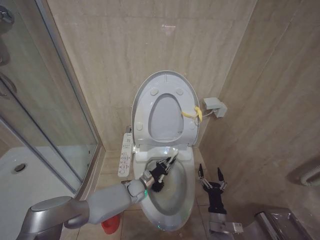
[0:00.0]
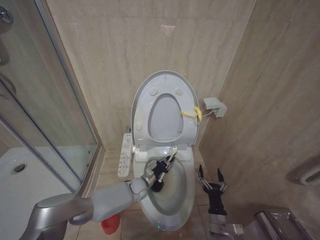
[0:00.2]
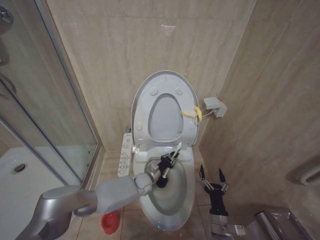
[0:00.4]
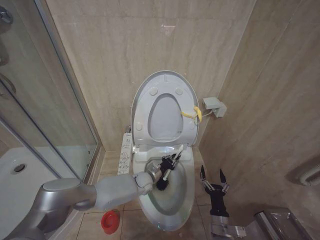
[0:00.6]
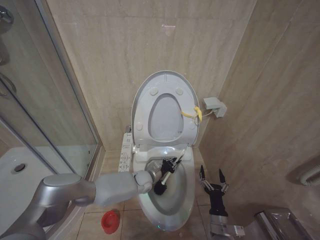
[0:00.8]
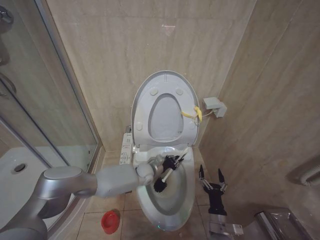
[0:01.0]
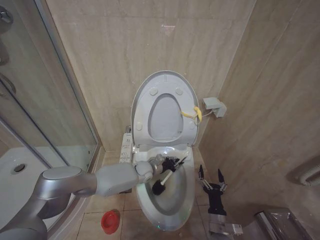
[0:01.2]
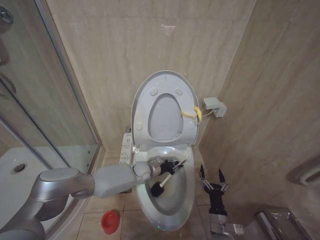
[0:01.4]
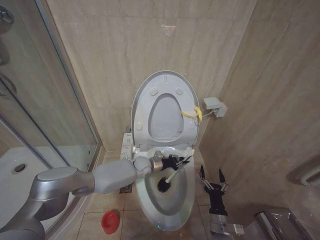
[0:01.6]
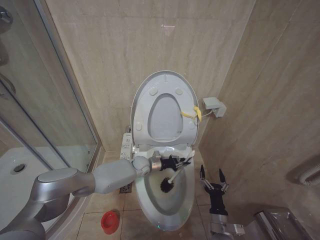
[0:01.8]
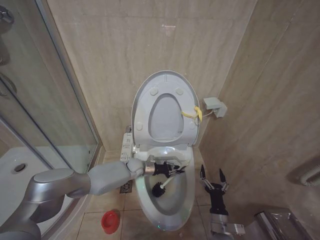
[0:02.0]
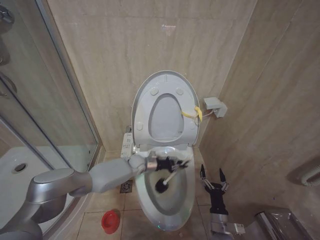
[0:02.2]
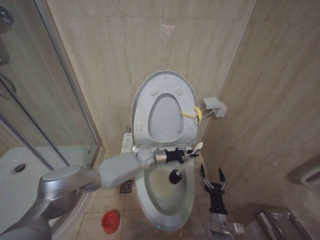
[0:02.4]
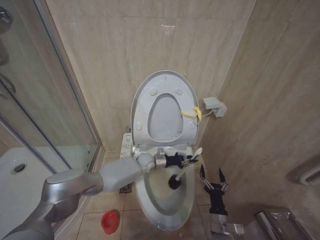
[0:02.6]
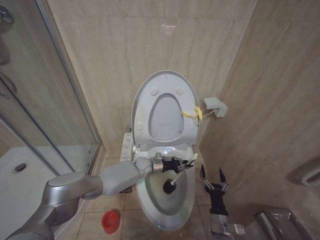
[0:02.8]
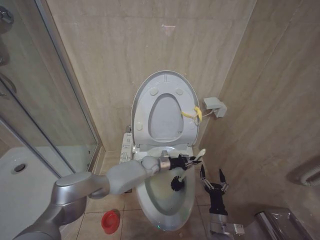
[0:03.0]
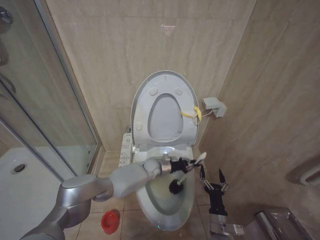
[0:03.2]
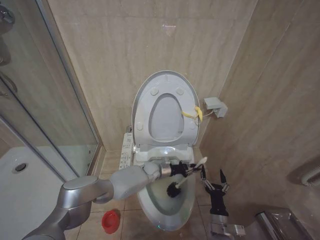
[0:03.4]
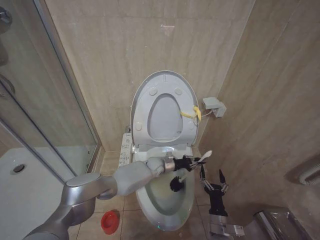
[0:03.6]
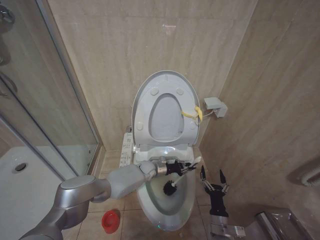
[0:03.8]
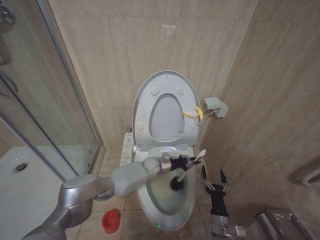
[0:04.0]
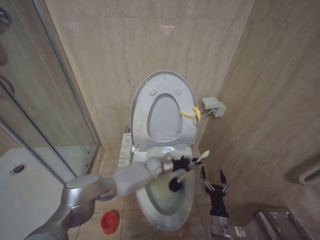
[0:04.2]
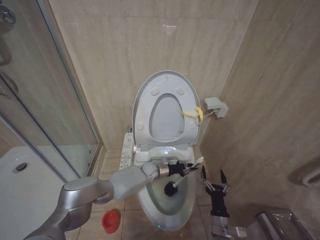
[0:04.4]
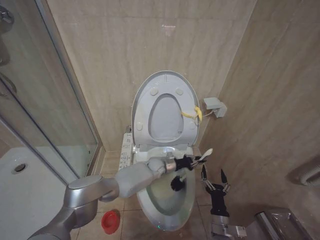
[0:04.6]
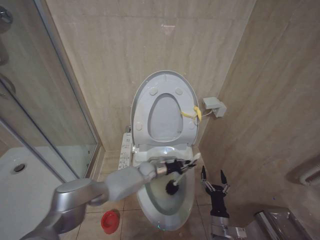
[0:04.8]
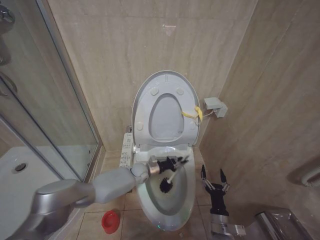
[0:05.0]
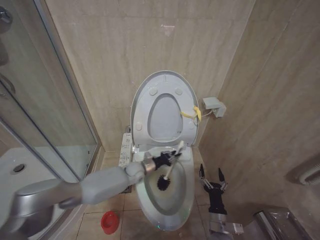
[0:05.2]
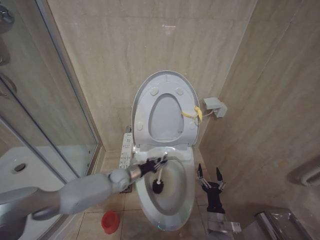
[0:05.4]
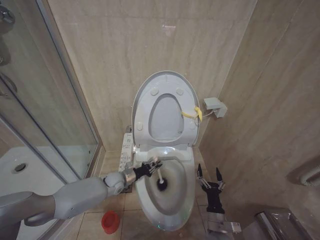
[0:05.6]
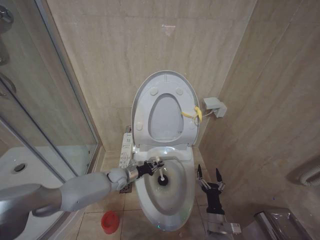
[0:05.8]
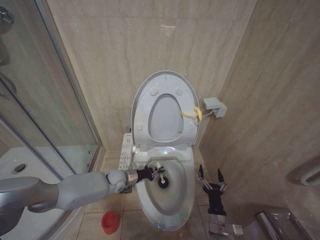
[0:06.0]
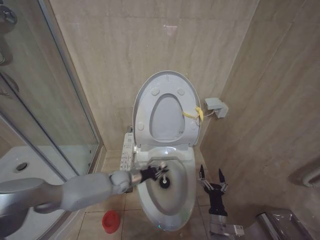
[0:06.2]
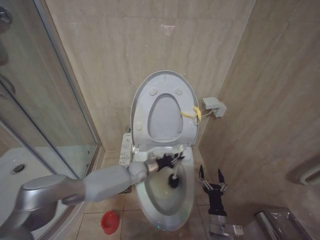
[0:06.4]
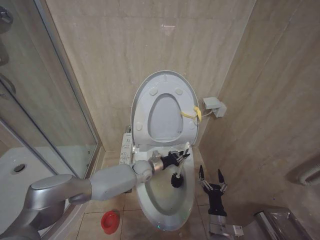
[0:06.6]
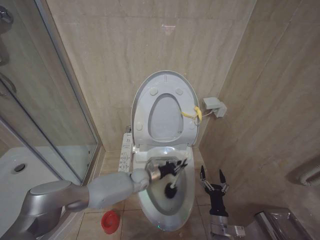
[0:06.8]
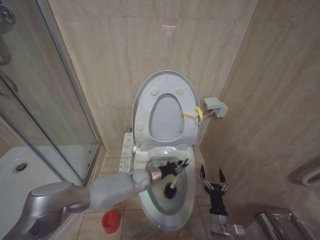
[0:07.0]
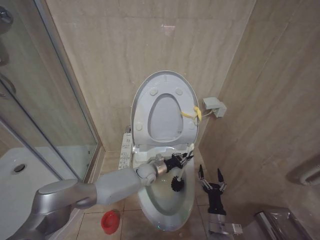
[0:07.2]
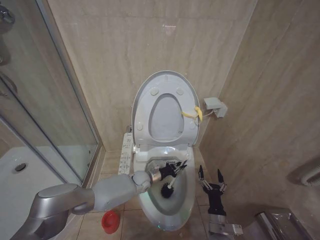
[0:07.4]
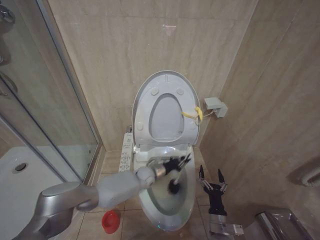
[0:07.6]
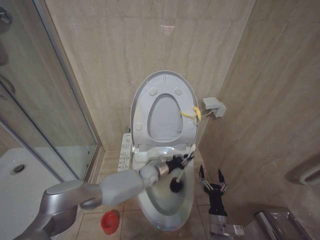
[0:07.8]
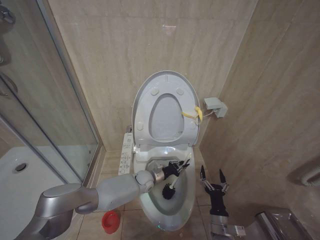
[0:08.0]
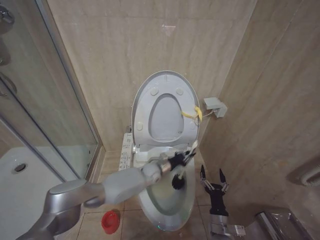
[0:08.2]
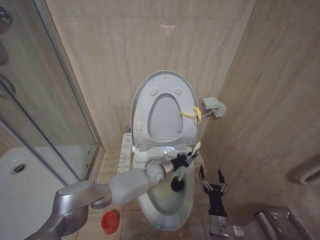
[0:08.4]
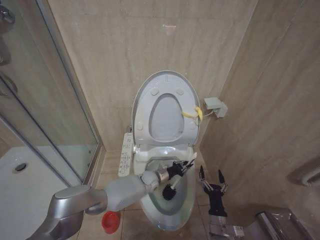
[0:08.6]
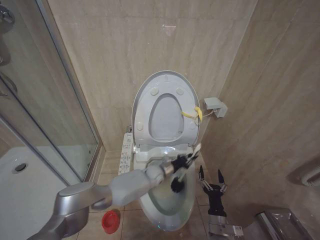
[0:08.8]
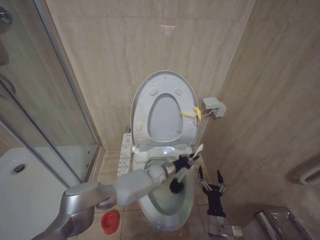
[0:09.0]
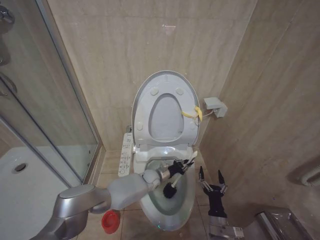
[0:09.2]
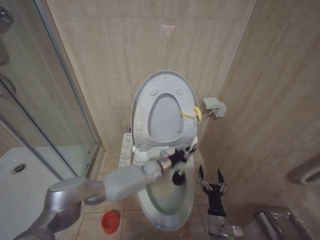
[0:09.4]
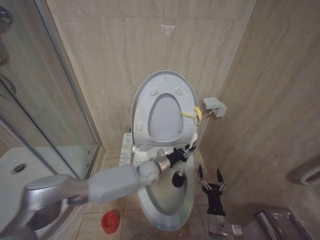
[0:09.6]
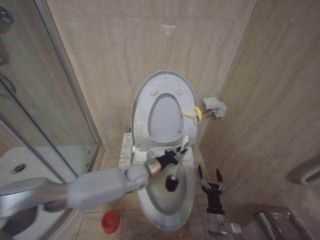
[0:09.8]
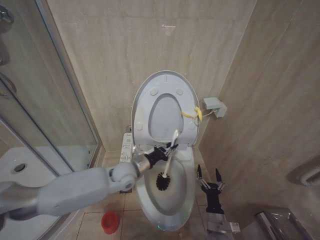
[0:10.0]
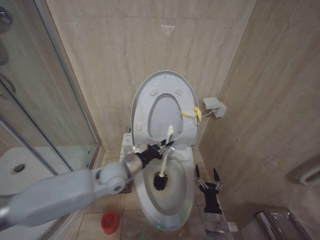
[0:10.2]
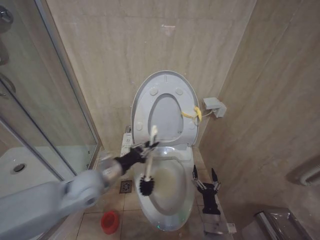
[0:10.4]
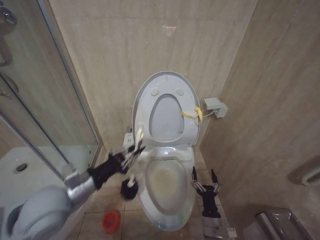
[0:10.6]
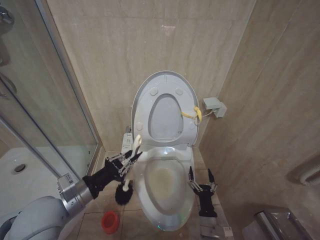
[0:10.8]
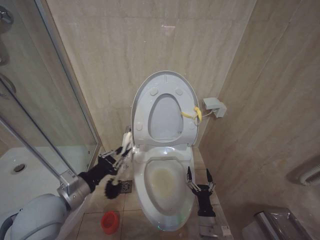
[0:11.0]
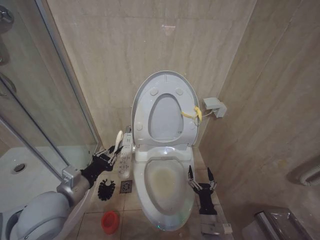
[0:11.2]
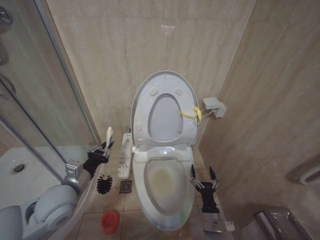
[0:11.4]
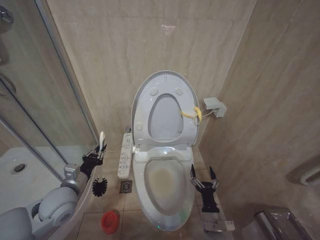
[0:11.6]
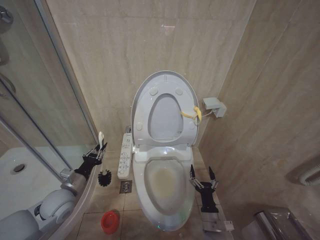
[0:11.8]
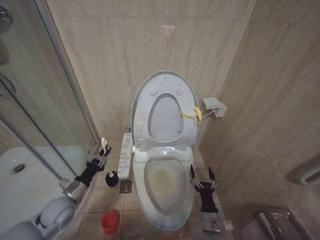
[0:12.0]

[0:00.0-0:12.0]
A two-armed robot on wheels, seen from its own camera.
Task of the whole recording: Open the toilet lid, clean the toilet bowl with a toilet brush, close the toilet lid, and flush.
0:00.0 to 0:01.6: The left gripper shifts roughly 10 cm upward and forward.
0:01.6 to 0:03.0: The grippers stay close to where they were, moving slightly.
0:03.0 to 0:04.4: There are only small adjustments of the grippers.
0:04.4 to 0:06.0: The left gripper is displaced to the left by approximately 15 cm.
0:06.0 to 0:07.6: The left gripper shifts approximately 10 cm to the right.
0:07.6 to 0:09.0: The left gripper goes some 10 cm to the right.
0:09.0 to 0:10.4: The left gripper heads to the left, upward and backward, covering about 30 cm.
0:10.4 to 0:12.0: The left gripper shifts about 20 cm to the left and downward.

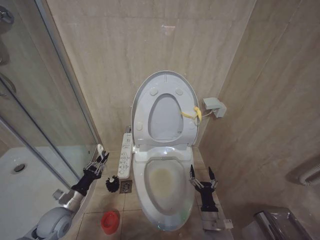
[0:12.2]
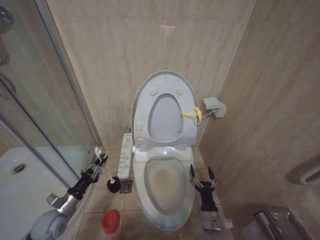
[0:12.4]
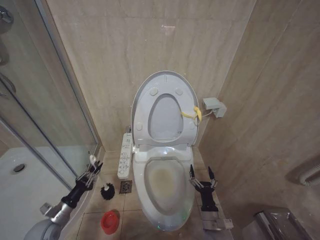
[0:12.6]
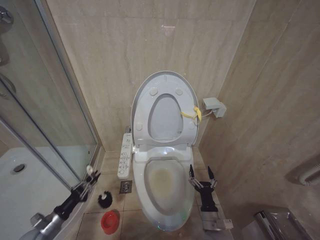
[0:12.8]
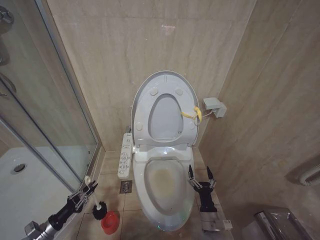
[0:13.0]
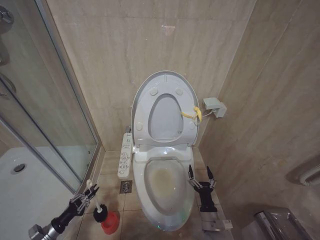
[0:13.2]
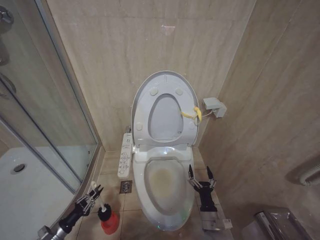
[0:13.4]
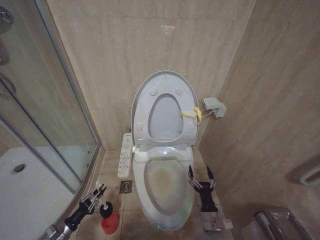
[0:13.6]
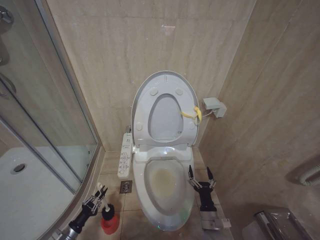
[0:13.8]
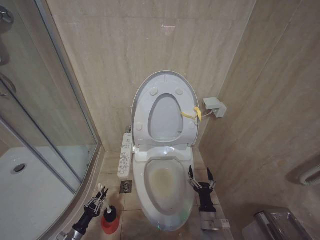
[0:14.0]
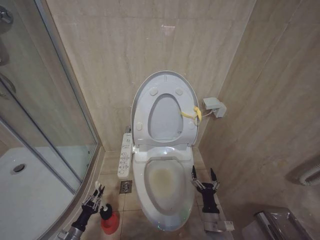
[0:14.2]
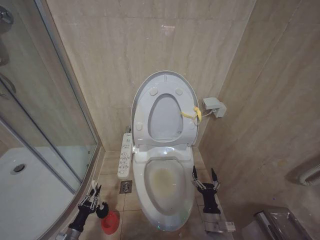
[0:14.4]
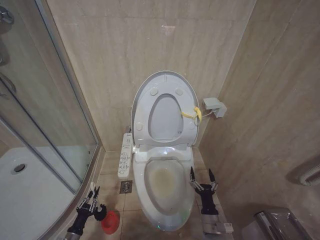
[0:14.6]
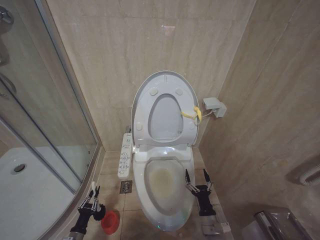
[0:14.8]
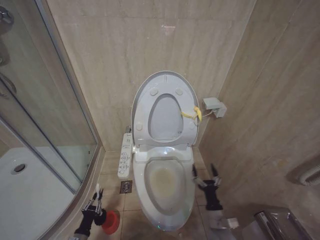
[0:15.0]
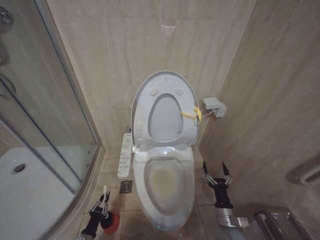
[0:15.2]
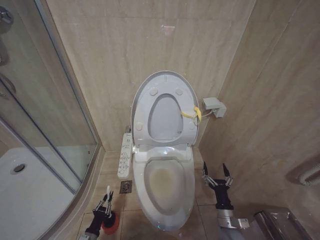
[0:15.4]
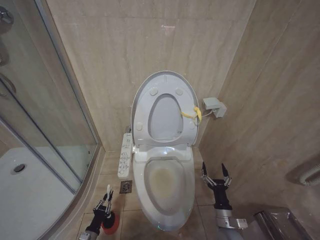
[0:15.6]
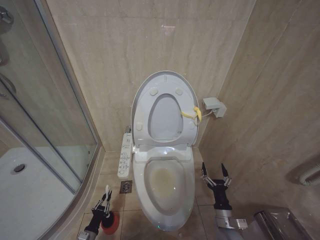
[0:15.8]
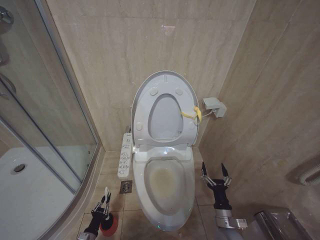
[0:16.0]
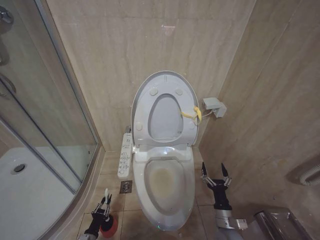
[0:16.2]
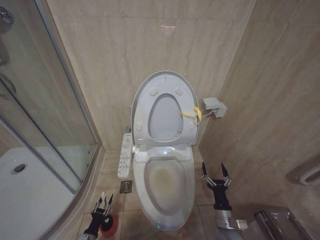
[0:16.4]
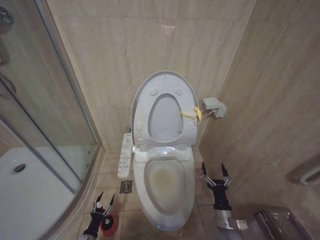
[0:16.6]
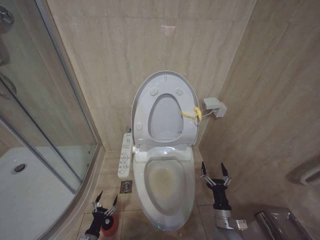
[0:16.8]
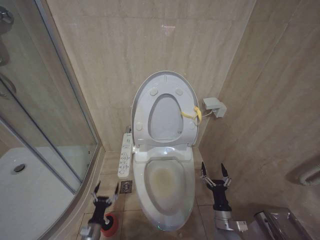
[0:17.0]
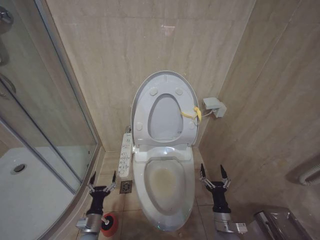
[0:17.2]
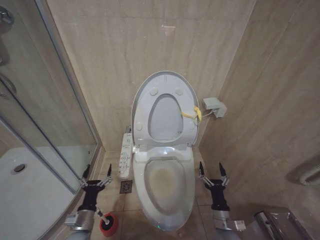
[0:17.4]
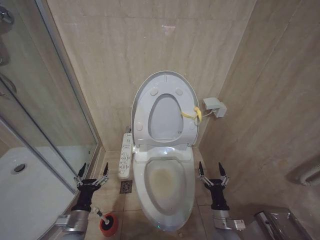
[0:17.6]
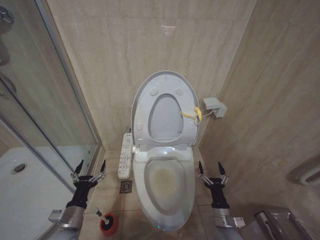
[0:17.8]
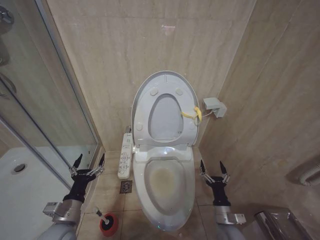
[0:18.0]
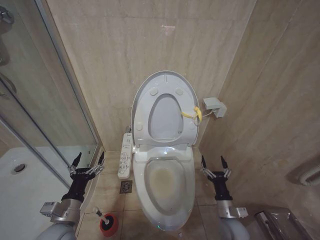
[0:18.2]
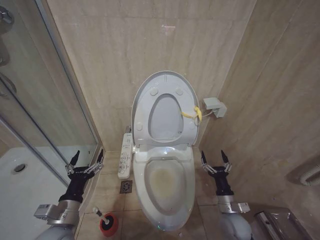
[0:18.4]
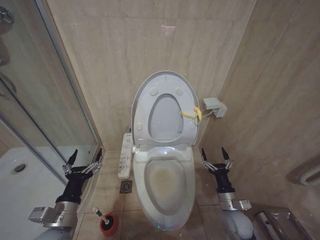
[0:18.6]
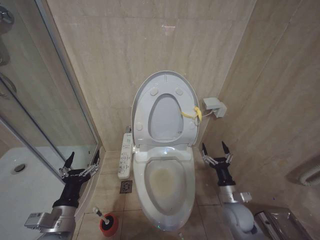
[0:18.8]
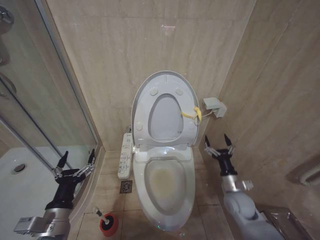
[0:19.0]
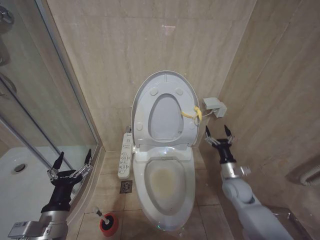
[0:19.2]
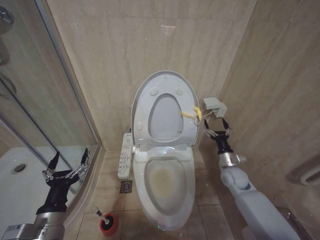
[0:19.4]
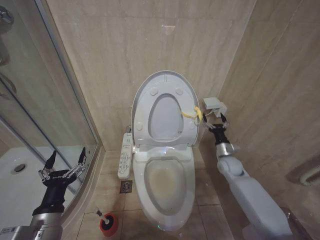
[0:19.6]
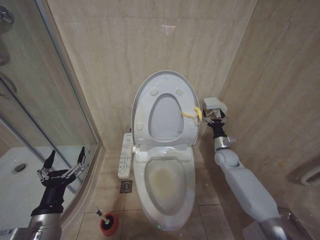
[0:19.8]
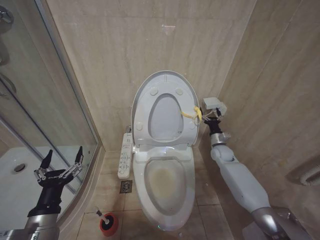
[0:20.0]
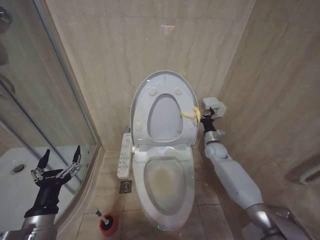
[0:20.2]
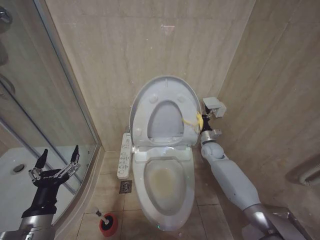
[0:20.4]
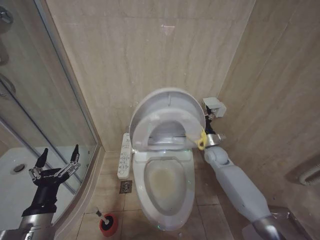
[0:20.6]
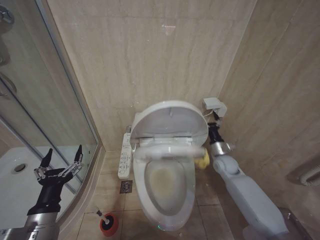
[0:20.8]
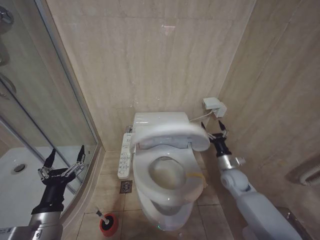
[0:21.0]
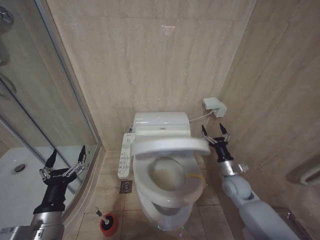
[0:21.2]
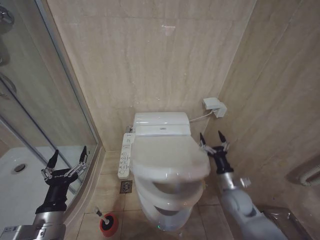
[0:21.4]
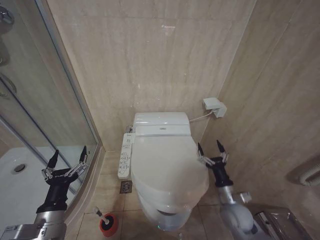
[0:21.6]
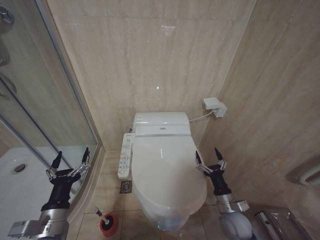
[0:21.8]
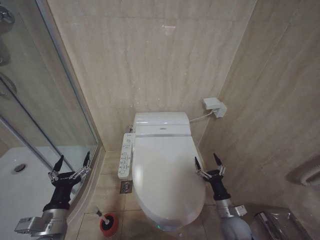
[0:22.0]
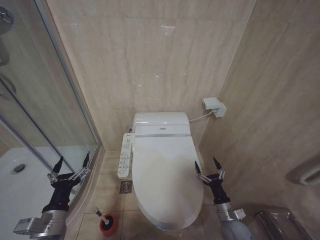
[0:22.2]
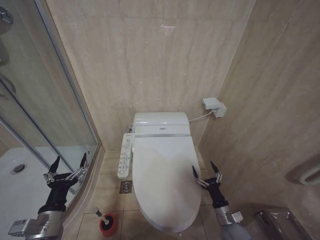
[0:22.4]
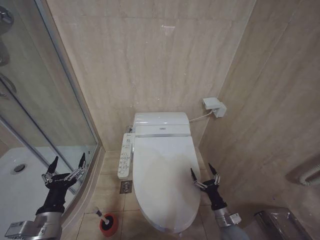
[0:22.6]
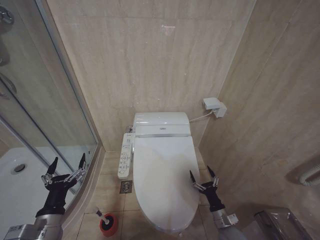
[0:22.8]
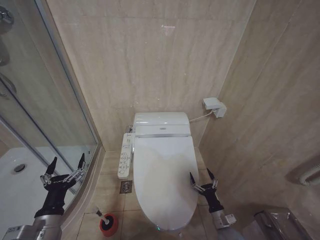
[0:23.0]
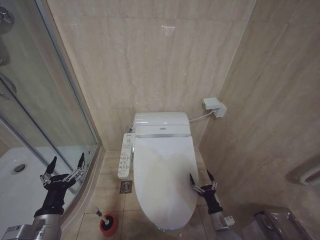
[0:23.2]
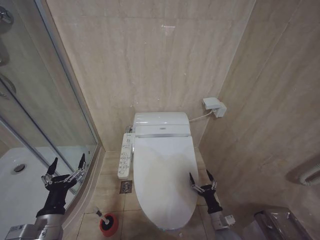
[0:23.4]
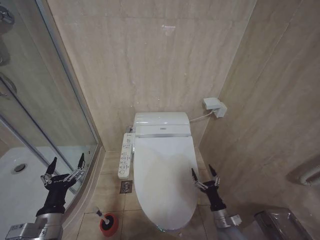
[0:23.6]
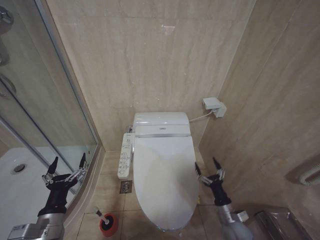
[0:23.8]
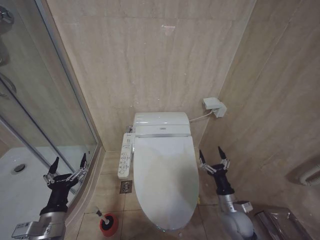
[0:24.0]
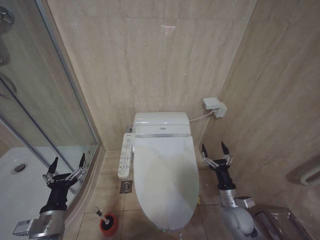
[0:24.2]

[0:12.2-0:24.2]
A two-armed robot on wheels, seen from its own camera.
Task of the whole recording: Open the toilet lid, clean the toilet bowl with a toilet brush, close the toilet lid, and flush.
0:12.2 to 0:13.8: The left gripper goes about 20 cm downward and to the left.
0:13.8 to 0:15.2: The right gripper moves some 5 cm, while the left gripper goes approximately 10 cm to the right.
0:15.2 to 0:16.6: The grippers stay close to where they were, moving slightly.
0:16.6 to 0:18.2: The left gripper heads upward, covering approximately 30 cm, and opens its fingers.
0:18.2 to 0:19.8: The right gripper moves forward and upward, approximately 25 cm. Meanwhile the left gripper moves upward and backward, roughly 10 cm.
0:19.8 to 0:21.2: The right gripper shifts some 10 cm backward.
0:21.2 to 0:22.6: The right gripper travels downward and backward by about 20 cm.
0:22.6 to 0:24.2: The right gripper shifts approximately 10 cm upward.
